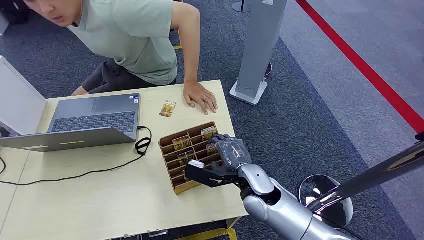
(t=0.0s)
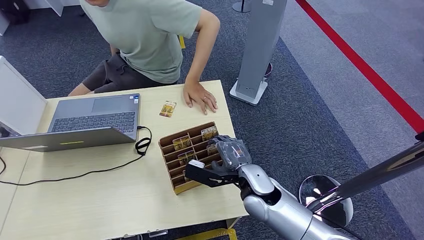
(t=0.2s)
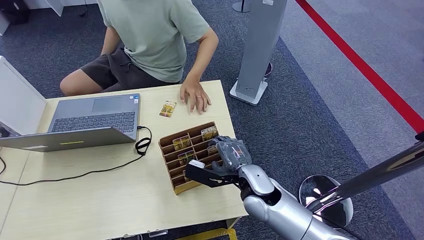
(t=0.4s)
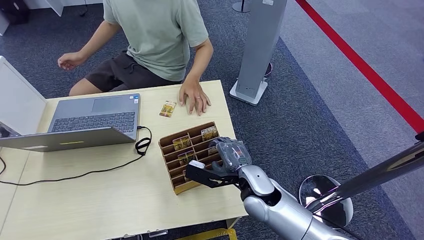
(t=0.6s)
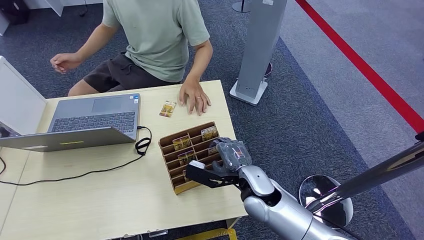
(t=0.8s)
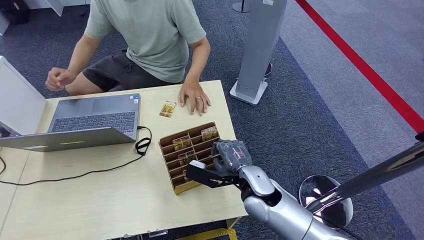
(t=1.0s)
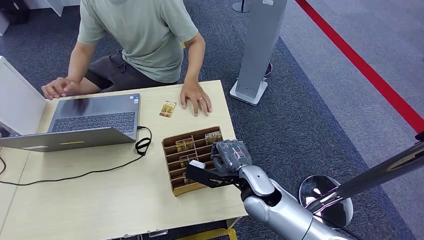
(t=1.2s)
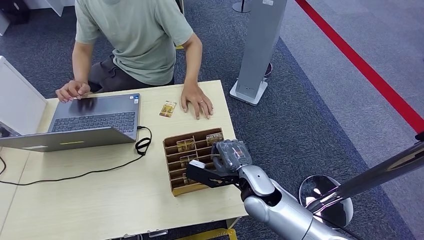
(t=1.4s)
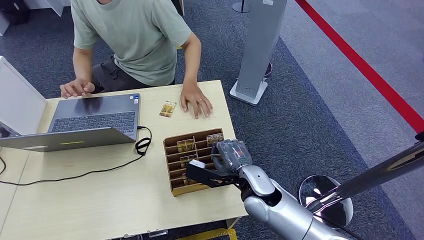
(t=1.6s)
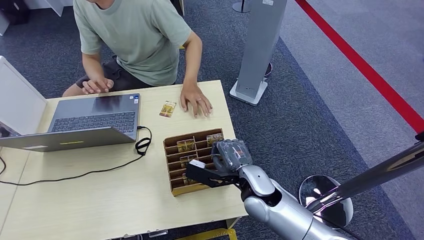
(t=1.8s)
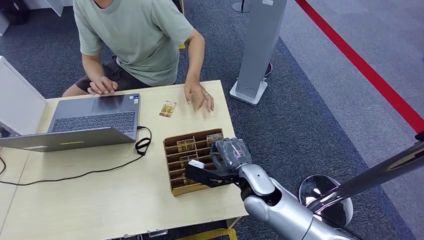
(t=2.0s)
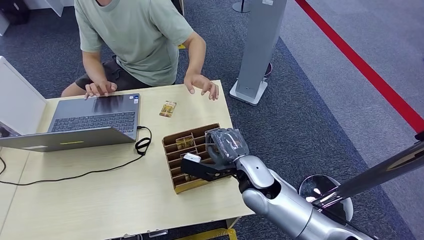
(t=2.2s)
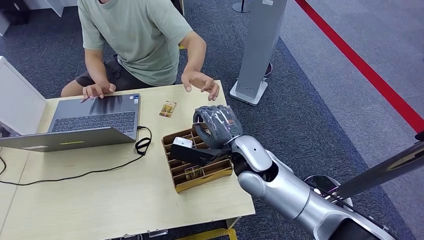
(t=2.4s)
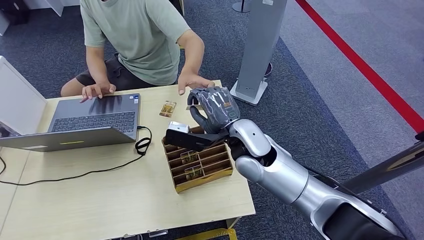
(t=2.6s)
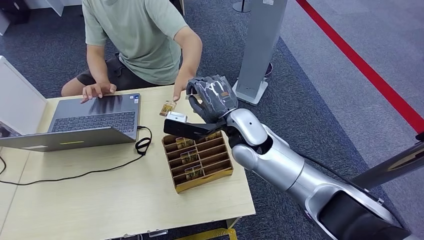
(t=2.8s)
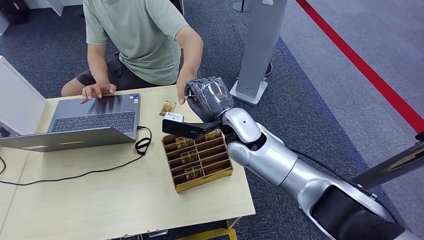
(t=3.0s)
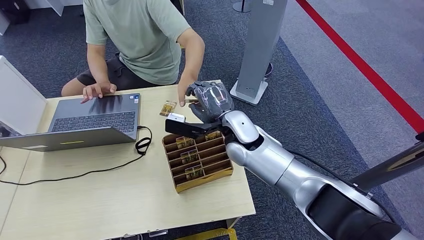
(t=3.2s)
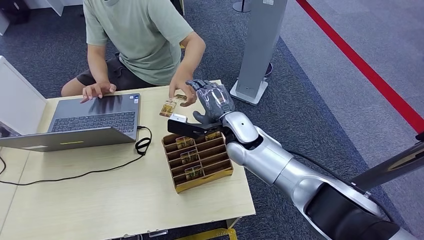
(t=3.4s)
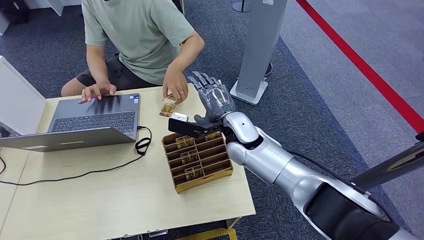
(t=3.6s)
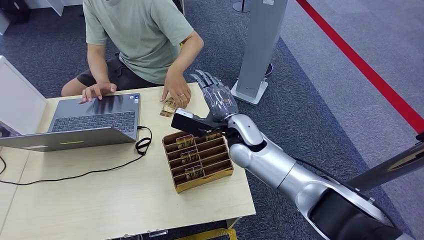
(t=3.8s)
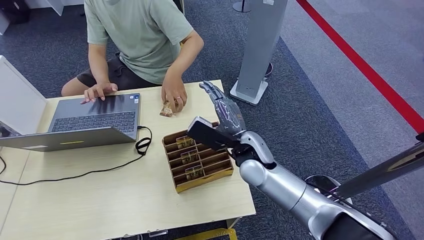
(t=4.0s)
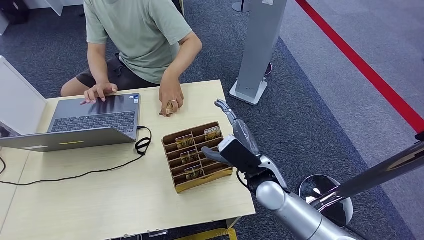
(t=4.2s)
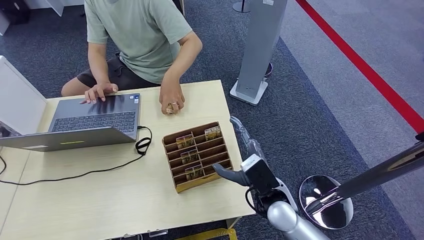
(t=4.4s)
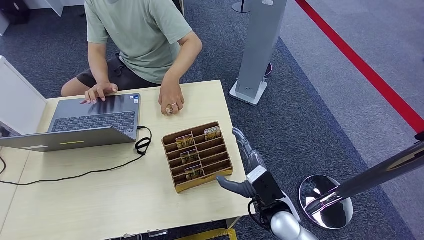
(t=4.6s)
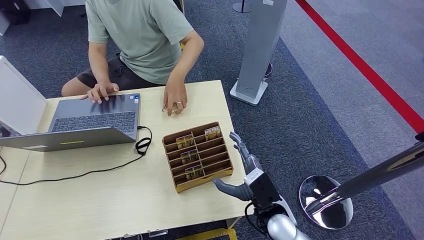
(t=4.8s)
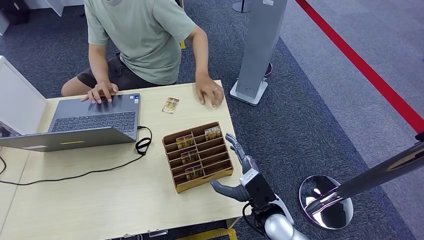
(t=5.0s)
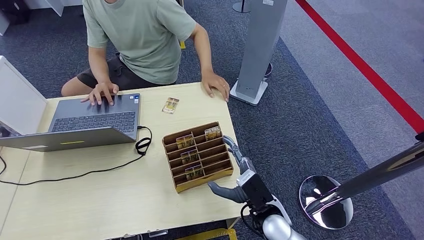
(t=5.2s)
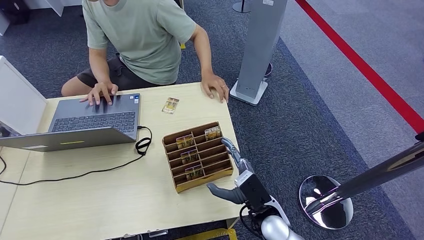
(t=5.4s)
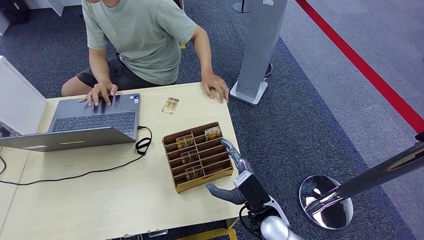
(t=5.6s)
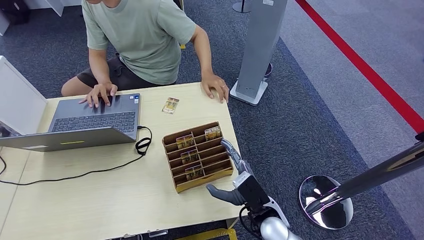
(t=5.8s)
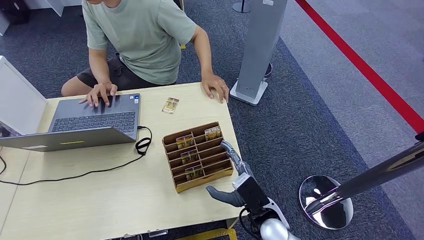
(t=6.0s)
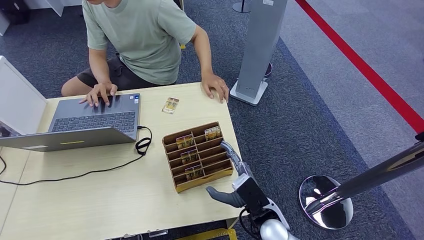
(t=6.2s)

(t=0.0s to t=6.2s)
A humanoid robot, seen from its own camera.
Step, t=0.0s - t=2.2s: Pick up the key card from the card box.
Step, t=2.4s - t=6.2s: Hand the key card to the target.
t=3.2s - t=4.6s: The right hand is displaced backward, downward and to the right by about 25 cm.
t=4.6s - t=6.2s: The hands stay close to where they were, moving slightly.

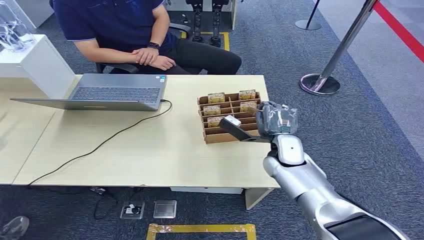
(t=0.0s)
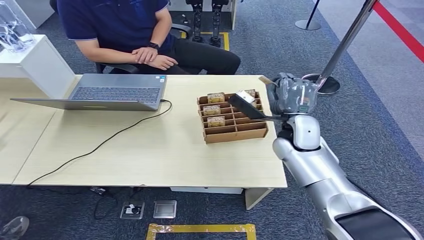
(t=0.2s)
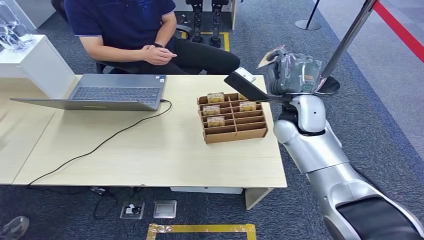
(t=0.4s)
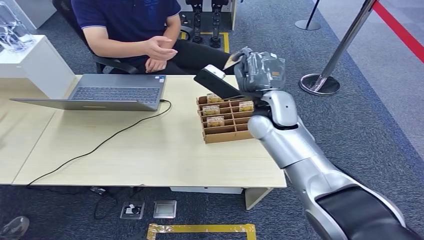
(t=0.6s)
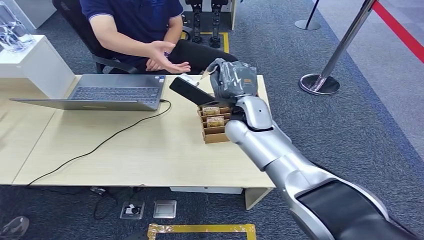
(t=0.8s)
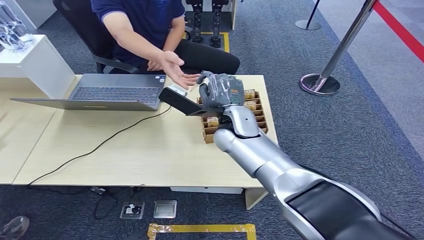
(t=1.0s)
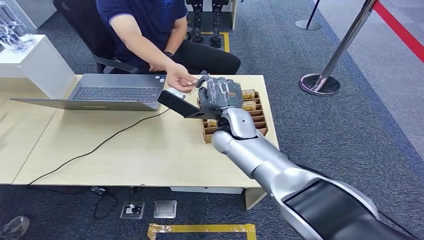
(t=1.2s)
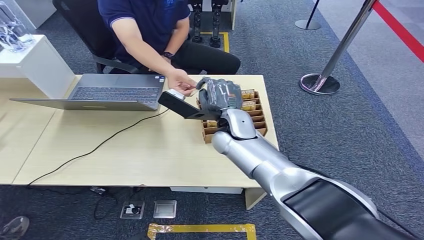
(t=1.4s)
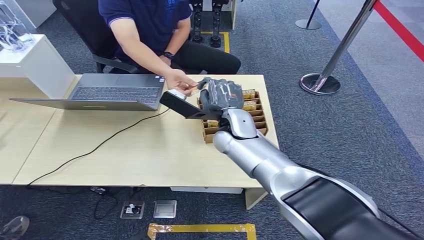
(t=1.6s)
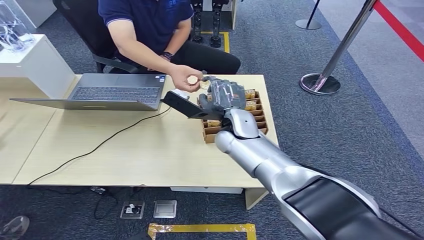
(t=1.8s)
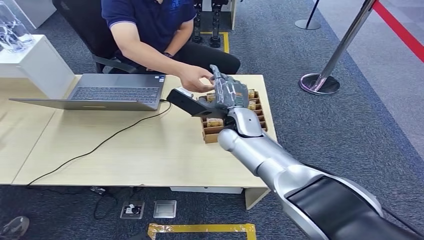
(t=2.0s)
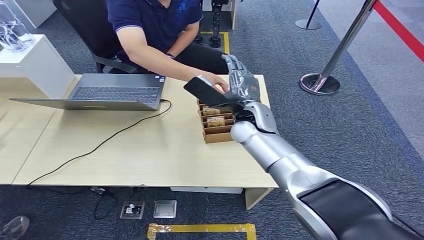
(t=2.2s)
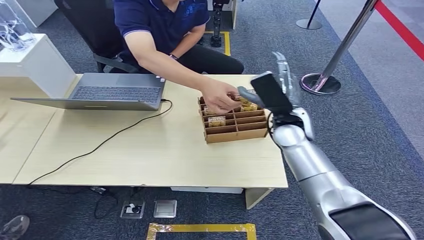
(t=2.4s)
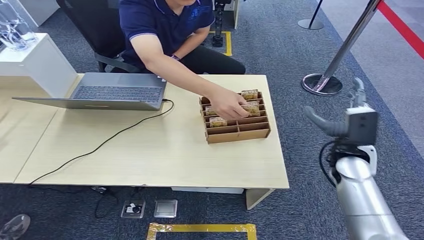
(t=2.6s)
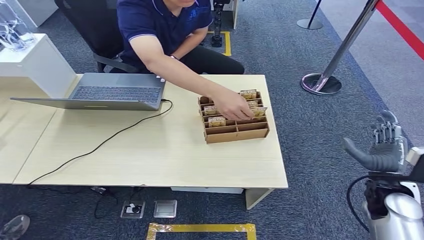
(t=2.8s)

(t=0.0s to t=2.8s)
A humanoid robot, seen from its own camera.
Step, t=0.0s - t=0.4s: Pick up the key card from the card box.
Step, t=0.6s - t=2.8s: Hand the key card to the target.
